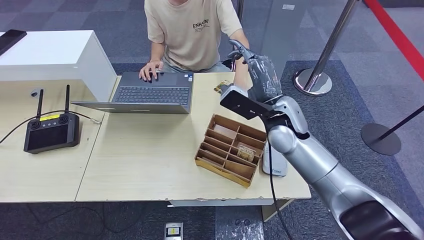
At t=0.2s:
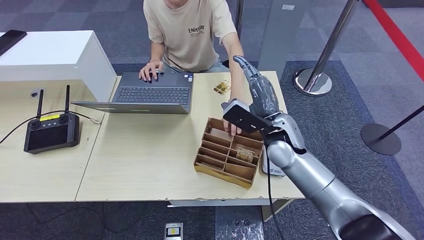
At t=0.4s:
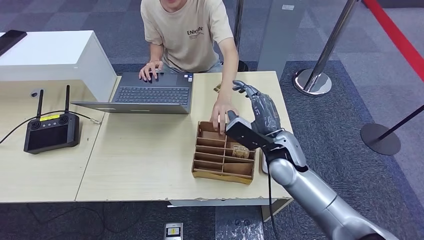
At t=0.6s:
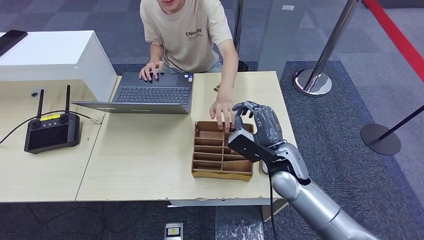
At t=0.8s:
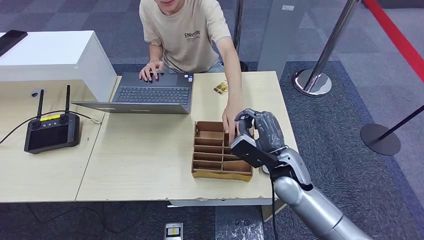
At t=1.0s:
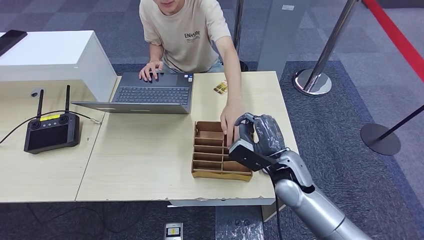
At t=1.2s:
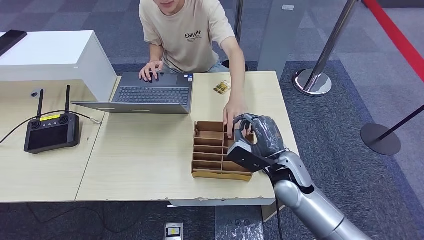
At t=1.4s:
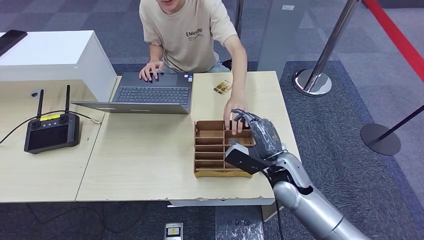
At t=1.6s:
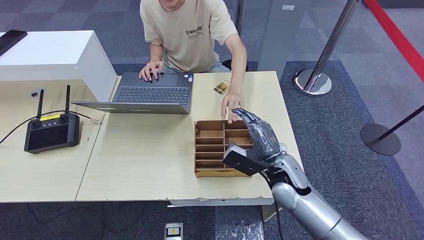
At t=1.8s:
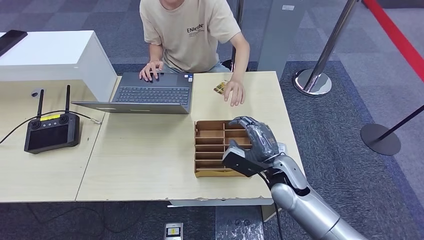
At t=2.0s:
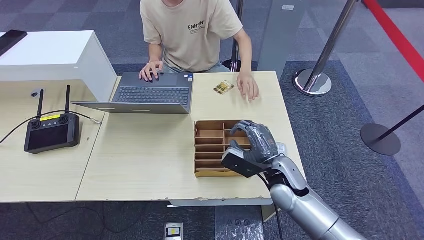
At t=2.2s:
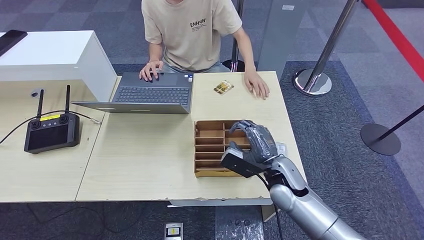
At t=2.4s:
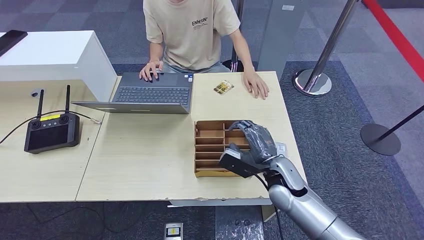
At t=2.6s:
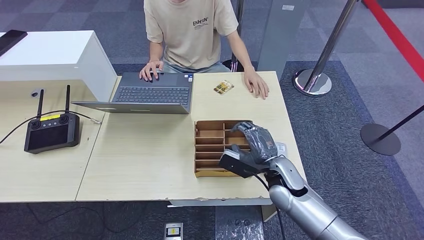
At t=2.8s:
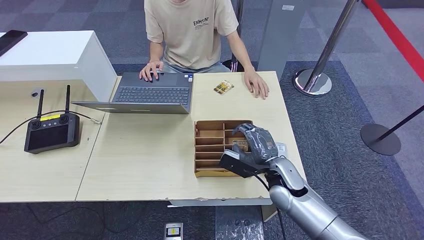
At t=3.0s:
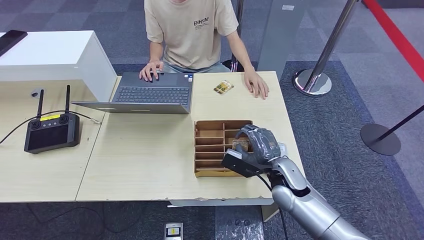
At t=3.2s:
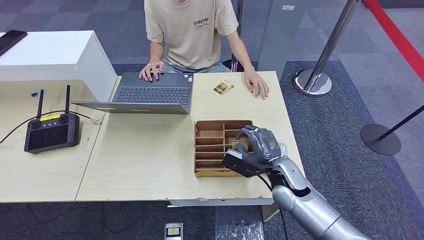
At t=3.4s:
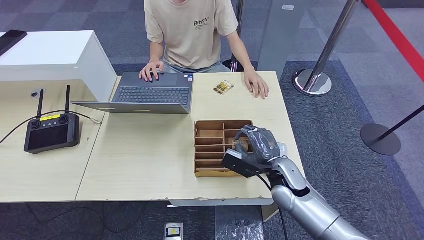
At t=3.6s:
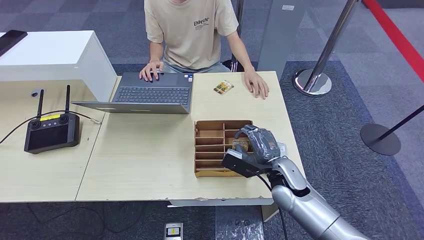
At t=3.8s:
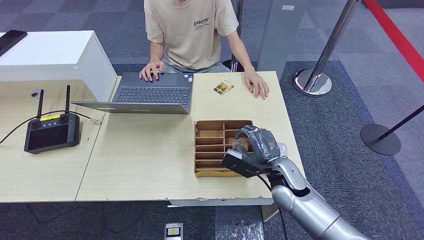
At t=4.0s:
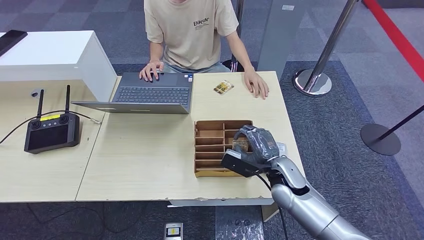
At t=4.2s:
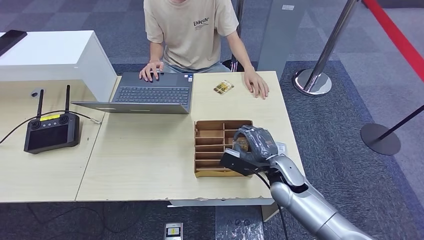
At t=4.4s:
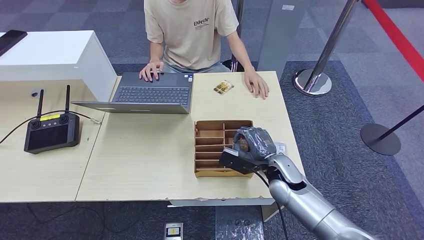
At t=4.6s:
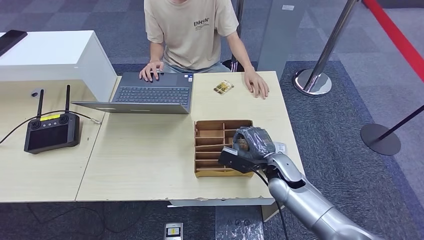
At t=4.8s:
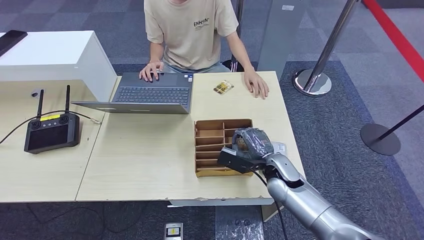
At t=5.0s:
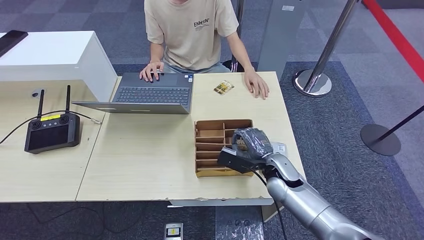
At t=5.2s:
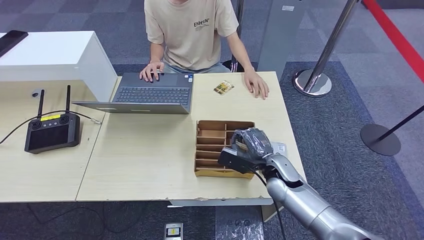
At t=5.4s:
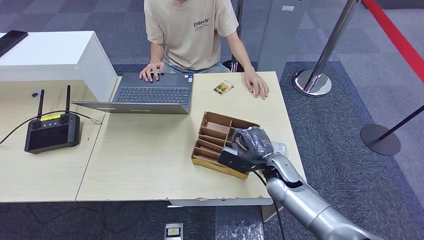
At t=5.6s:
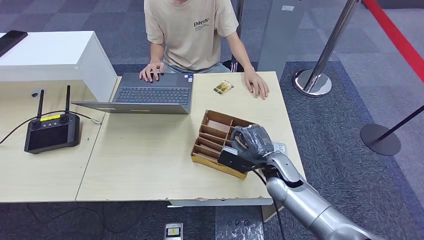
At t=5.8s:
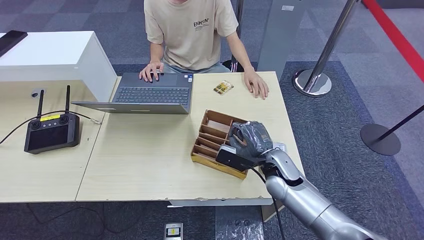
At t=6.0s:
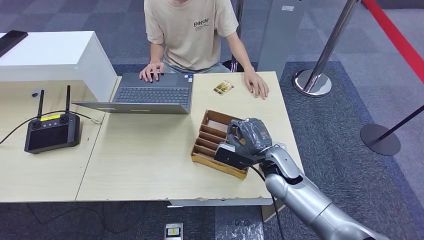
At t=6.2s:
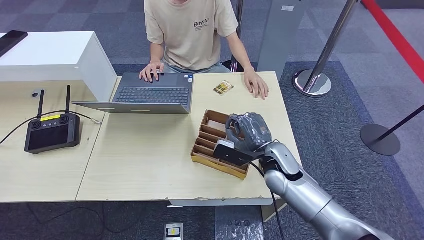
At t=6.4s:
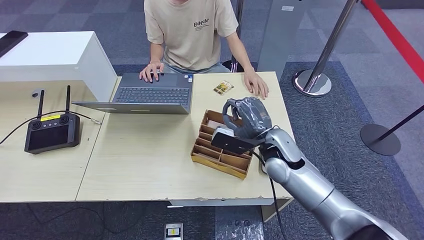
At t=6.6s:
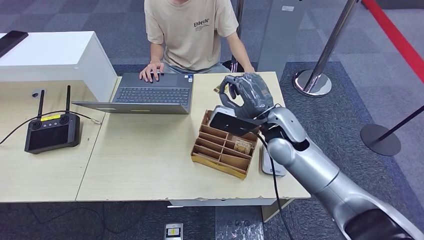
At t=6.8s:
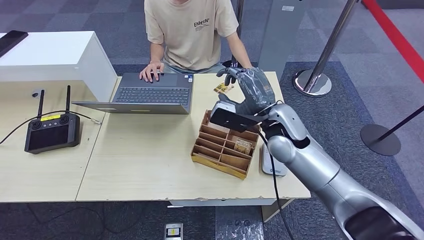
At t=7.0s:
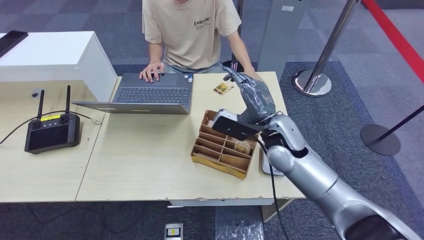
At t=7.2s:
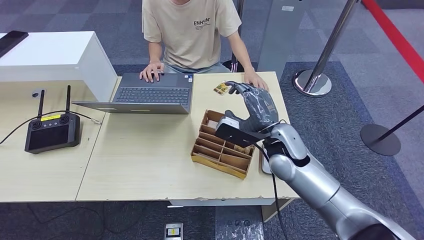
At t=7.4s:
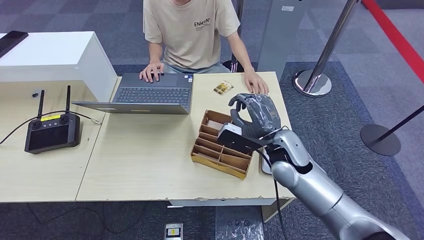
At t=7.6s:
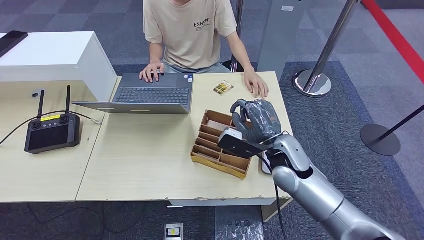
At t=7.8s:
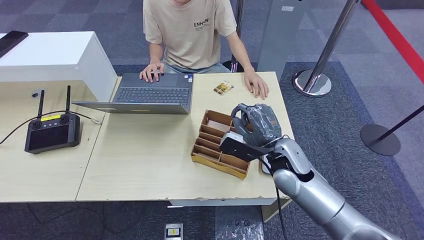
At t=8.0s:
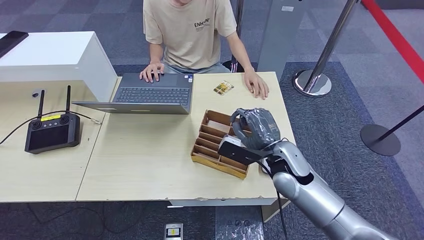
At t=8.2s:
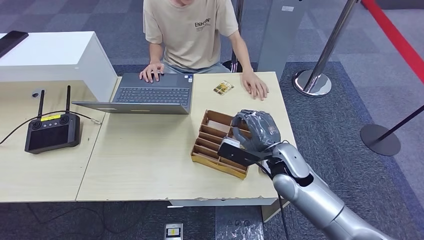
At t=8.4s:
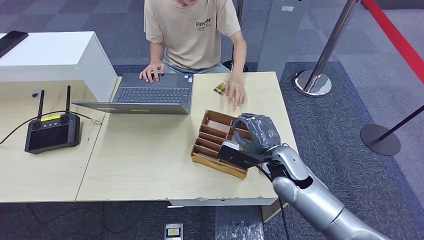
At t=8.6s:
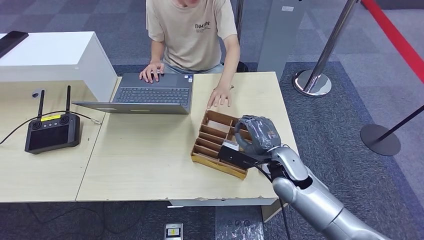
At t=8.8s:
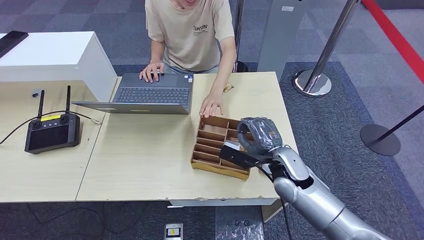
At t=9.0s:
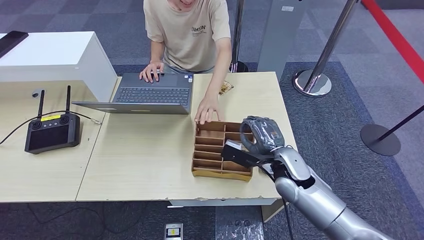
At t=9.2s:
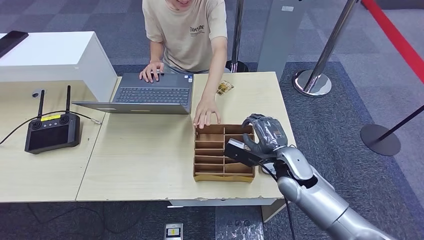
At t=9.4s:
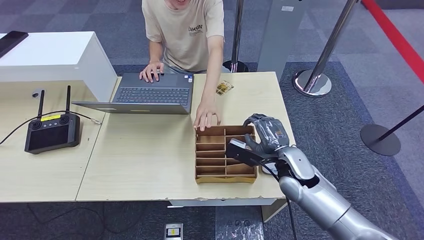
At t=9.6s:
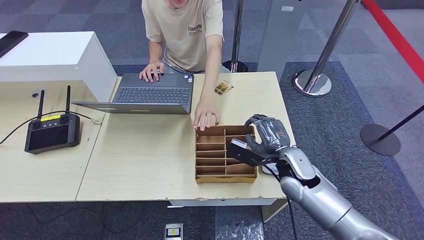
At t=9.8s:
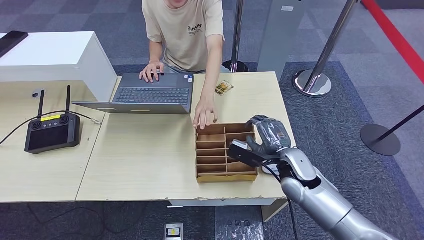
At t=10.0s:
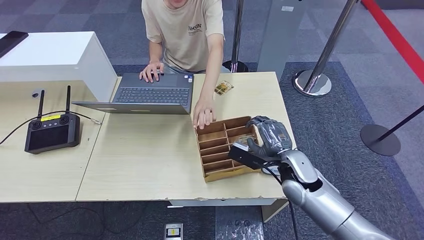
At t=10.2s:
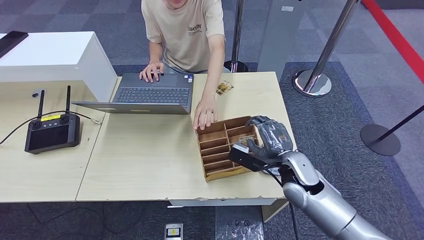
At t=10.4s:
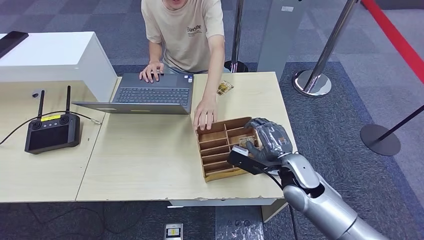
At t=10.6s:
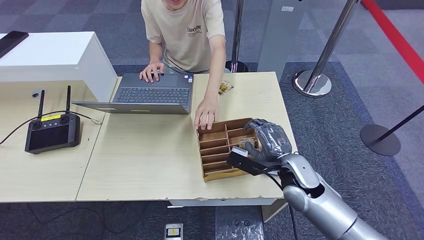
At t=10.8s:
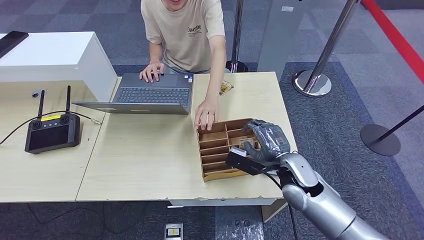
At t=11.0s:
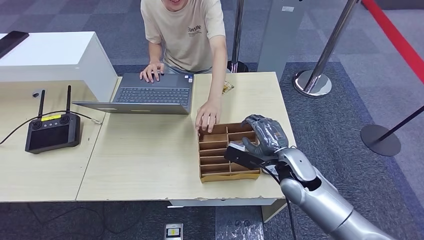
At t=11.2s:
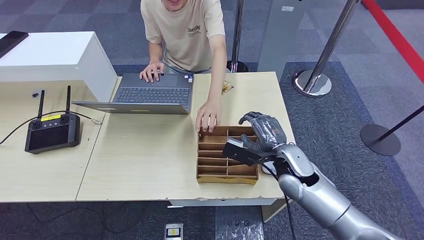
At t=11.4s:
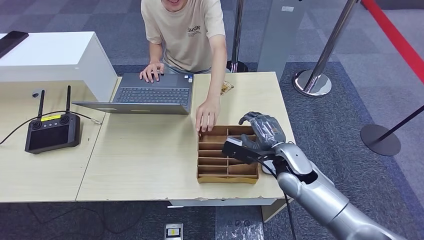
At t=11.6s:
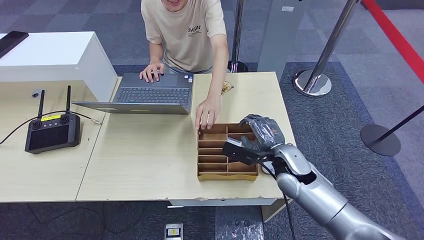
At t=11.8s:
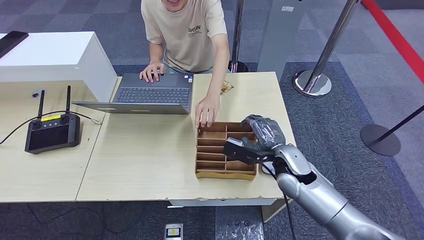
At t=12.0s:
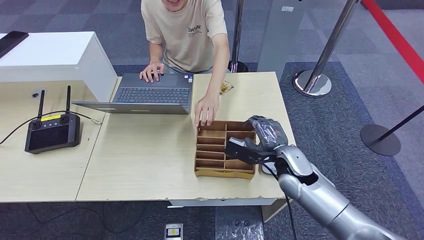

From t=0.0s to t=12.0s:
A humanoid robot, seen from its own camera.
From t=0.0s to t=1.6s: The right hand moves downward and backward, approximately 15 cm.
From t=1.6s to t=6.0s: There are only small adjustments of the hands.
From t=6.0s to t=7.6s: The right hand heads upward, covering about 5 cm.
From t=7.6s to t=10.4s: The hands make only small movements.
From t=10.4s to t=12.0s: The hands make only small movements.

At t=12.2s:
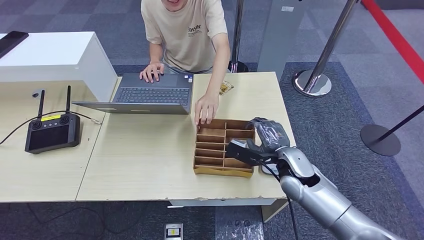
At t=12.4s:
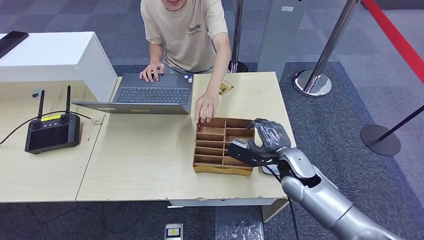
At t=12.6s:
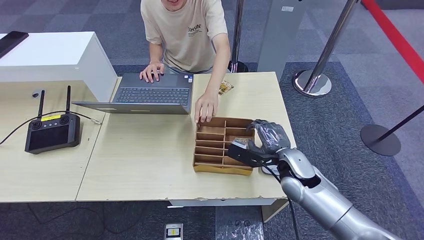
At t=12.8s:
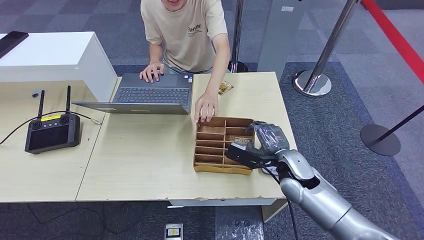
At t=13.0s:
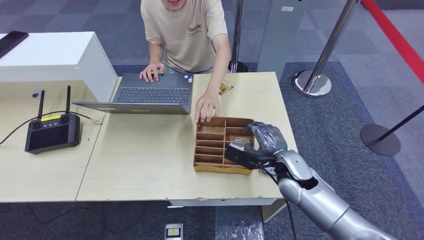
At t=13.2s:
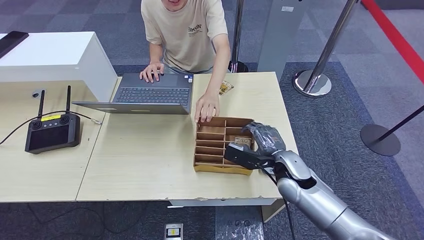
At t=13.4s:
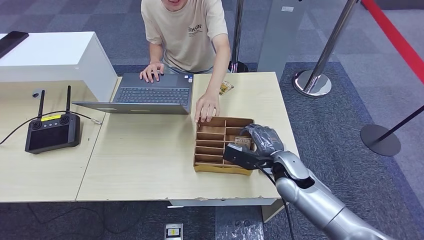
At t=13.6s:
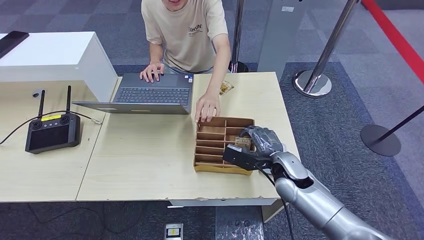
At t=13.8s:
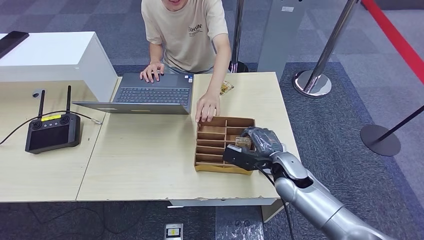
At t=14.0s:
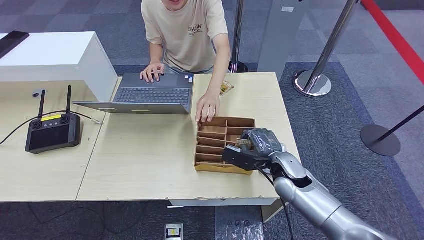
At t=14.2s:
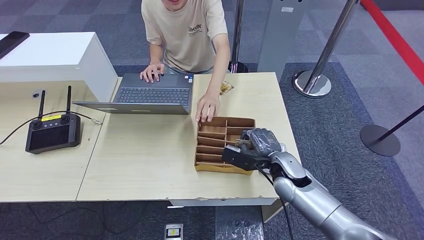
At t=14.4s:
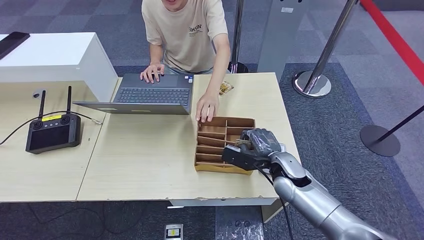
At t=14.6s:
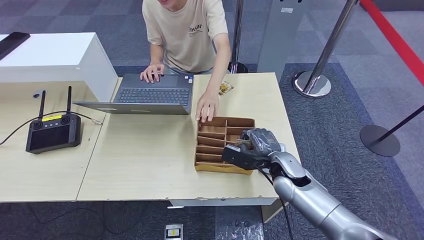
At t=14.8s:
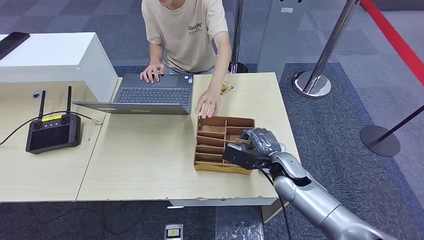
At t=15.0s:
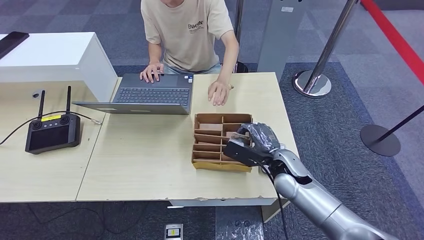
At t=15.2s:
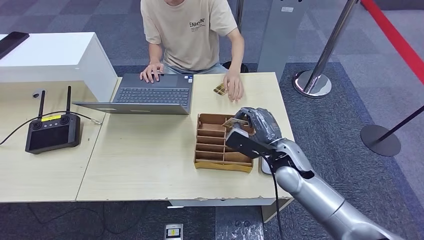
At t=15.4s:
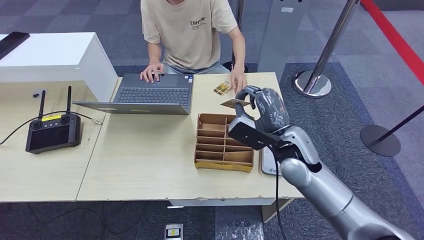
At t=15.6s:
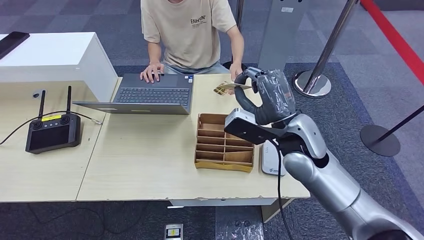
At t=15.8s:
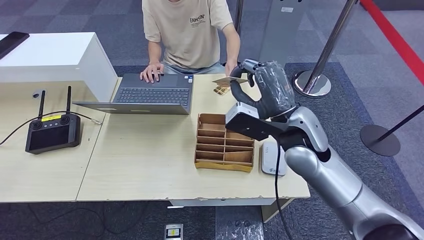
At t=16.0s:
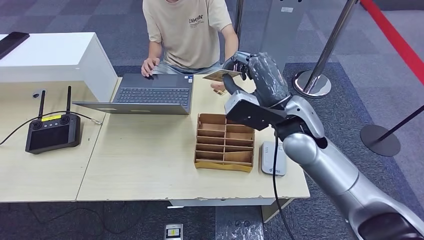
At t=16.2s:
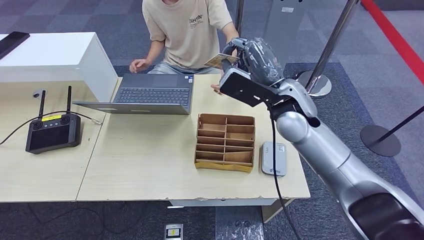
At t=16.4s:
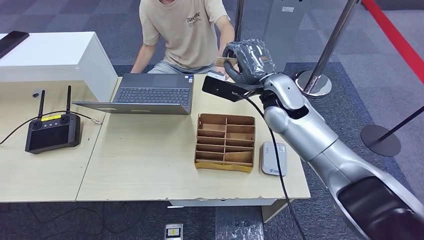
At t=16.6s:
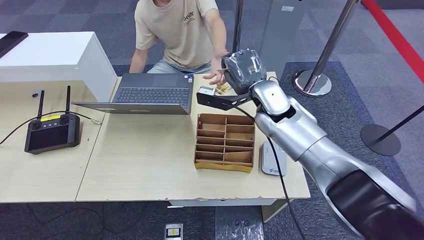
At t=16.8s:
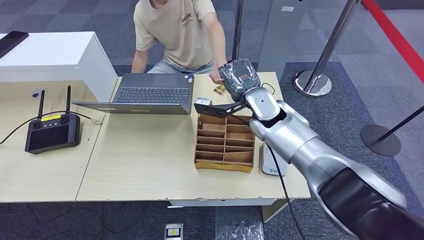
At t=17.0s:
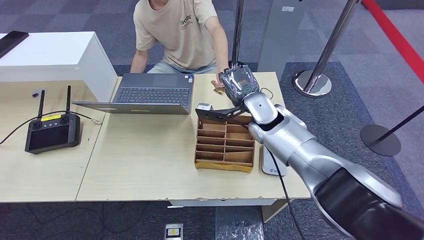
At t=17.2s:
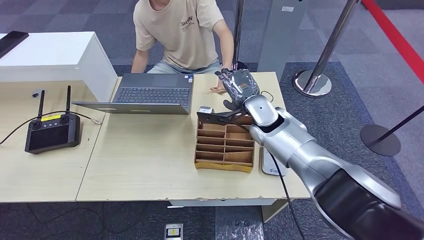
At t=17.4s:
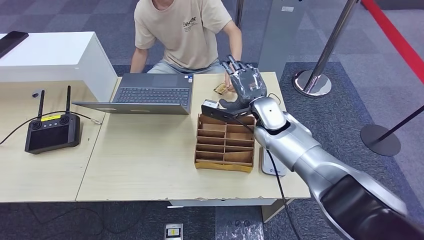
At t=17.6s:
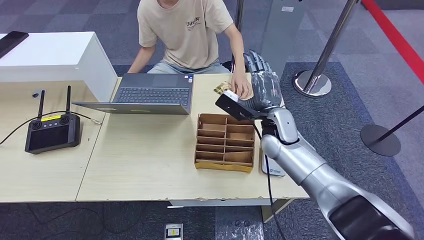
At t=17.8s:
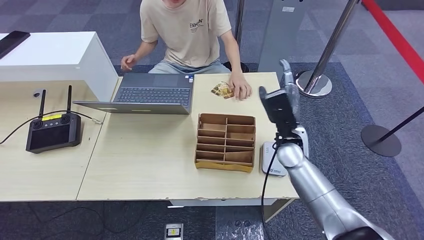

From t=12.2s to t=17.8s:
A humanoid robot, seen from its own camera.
Step, from t=12.2s to t=15.4s: Pick up the room key from the key card box.
Step, from t=15.6s to t=17.8s: Hand the room key to the person.
From t=12.2s to t=15.0s: The hands move only a little.
From t=16.4s to t=17.8s: The right hand moves downward and to the right, roughly 15 cm.
